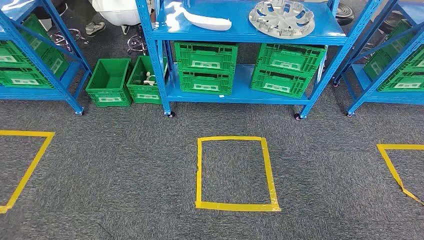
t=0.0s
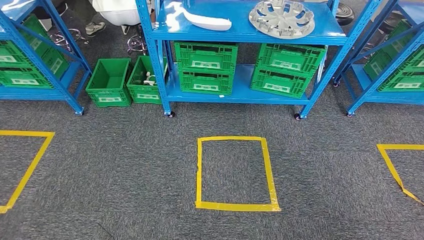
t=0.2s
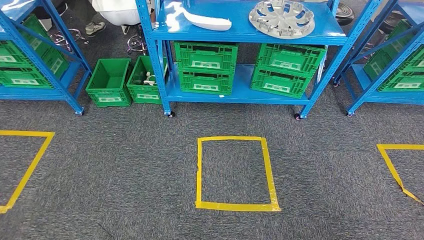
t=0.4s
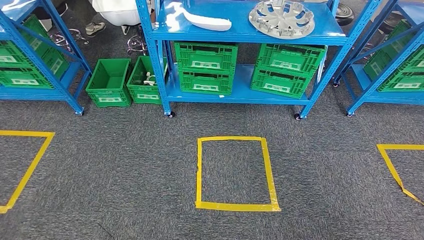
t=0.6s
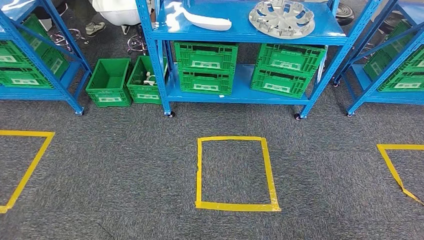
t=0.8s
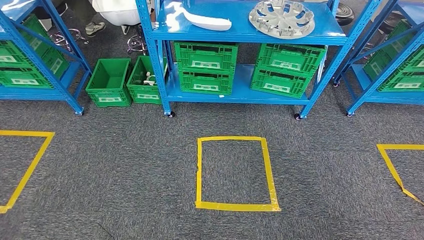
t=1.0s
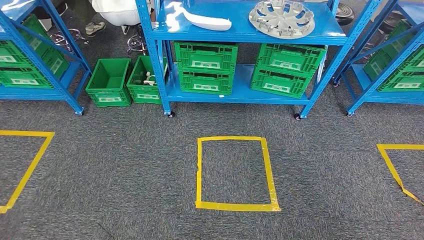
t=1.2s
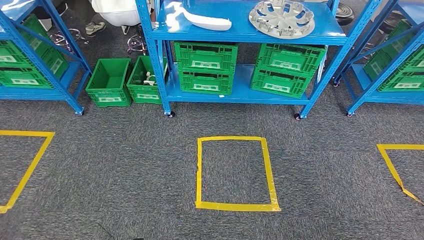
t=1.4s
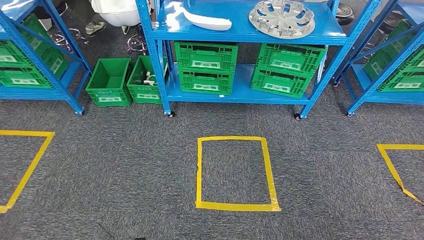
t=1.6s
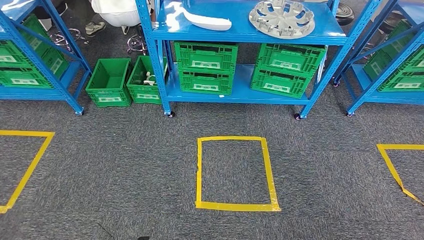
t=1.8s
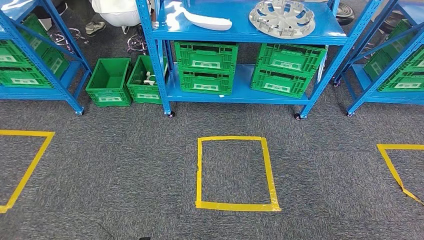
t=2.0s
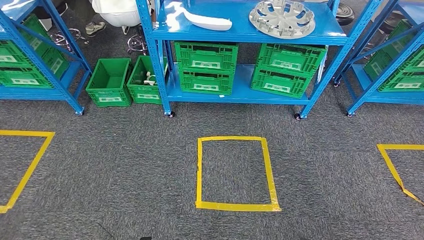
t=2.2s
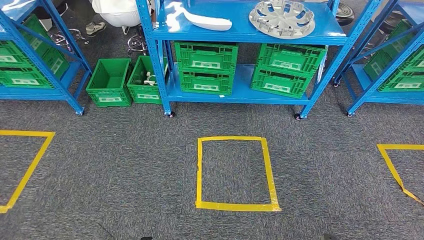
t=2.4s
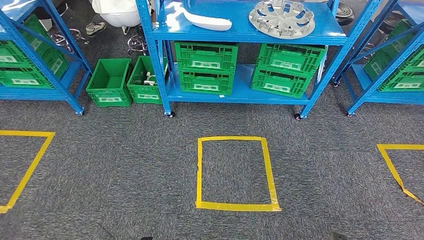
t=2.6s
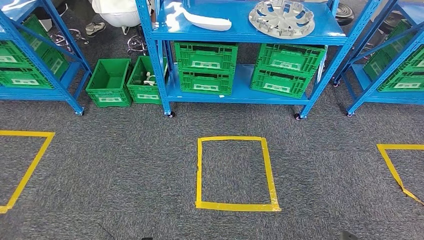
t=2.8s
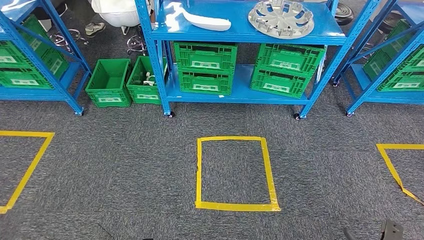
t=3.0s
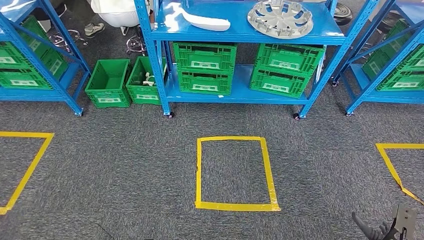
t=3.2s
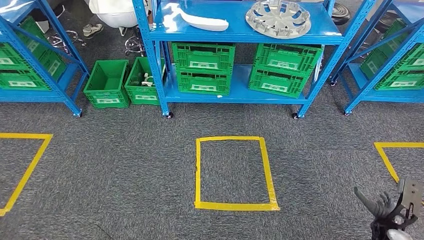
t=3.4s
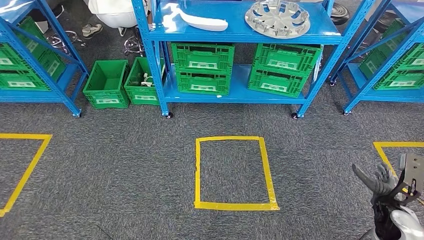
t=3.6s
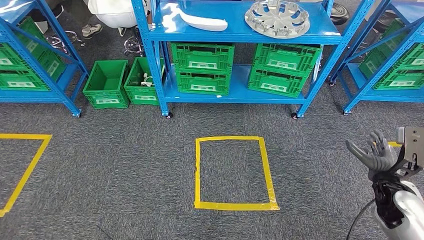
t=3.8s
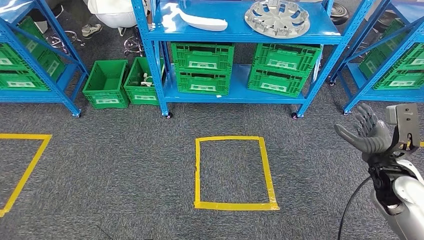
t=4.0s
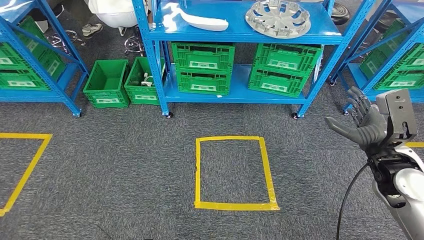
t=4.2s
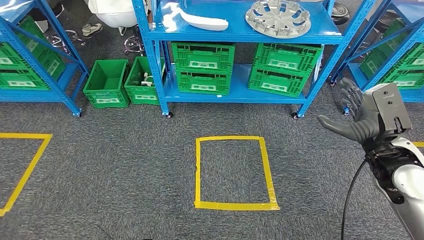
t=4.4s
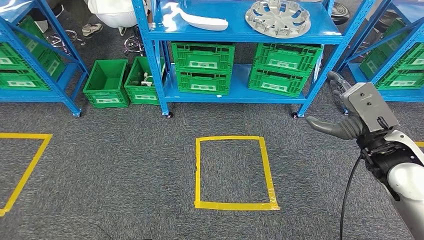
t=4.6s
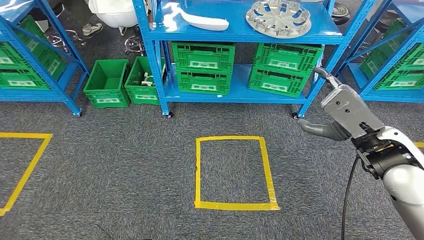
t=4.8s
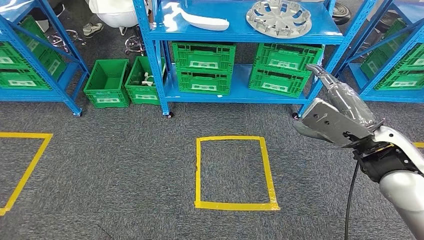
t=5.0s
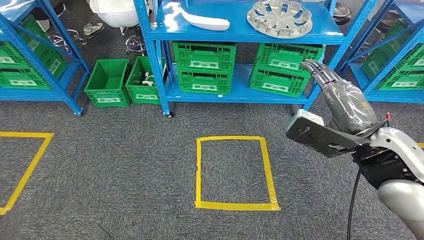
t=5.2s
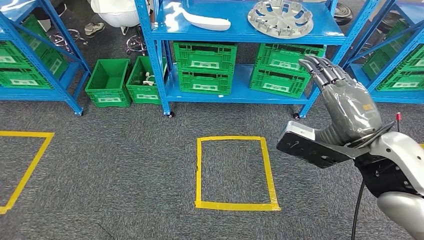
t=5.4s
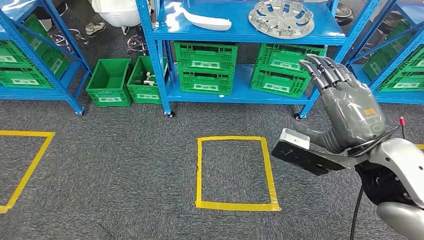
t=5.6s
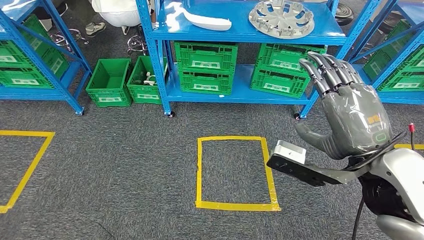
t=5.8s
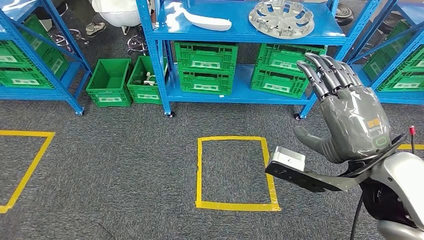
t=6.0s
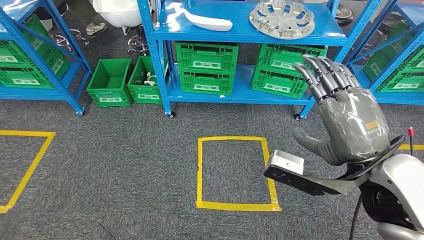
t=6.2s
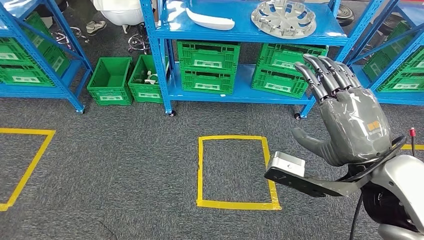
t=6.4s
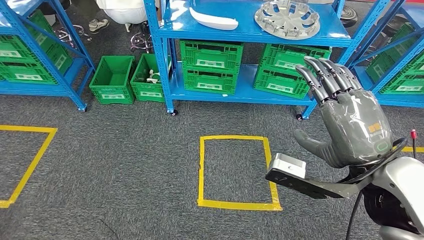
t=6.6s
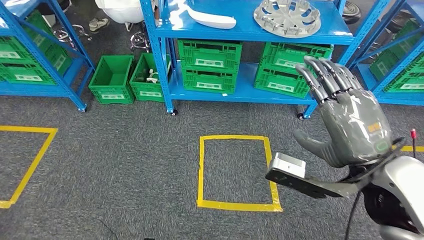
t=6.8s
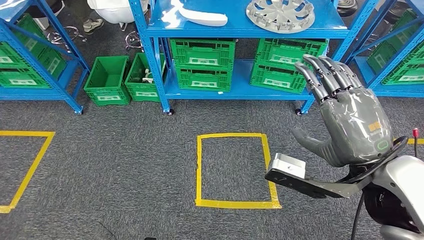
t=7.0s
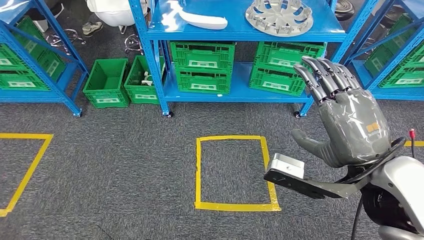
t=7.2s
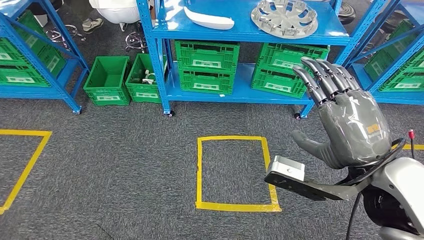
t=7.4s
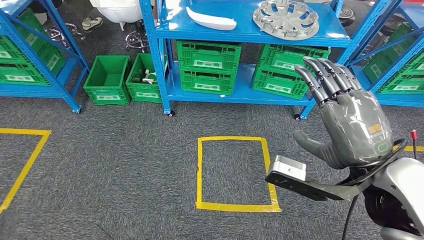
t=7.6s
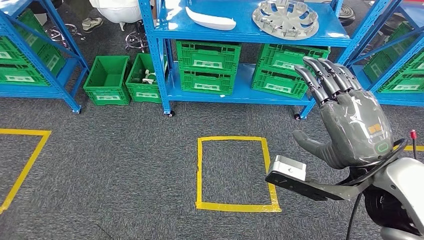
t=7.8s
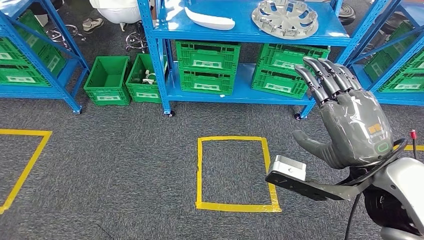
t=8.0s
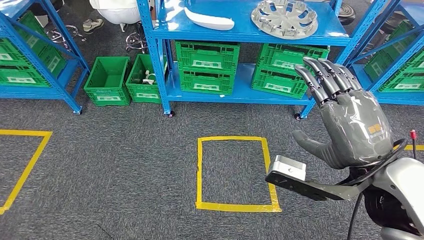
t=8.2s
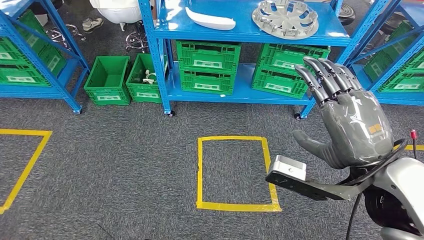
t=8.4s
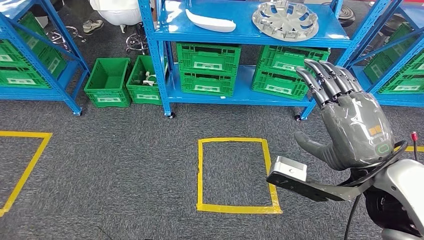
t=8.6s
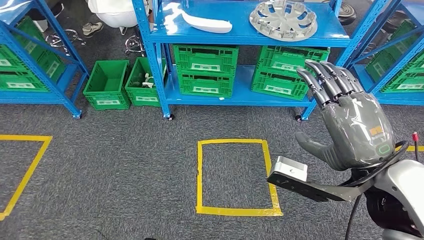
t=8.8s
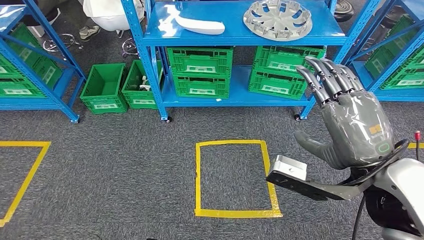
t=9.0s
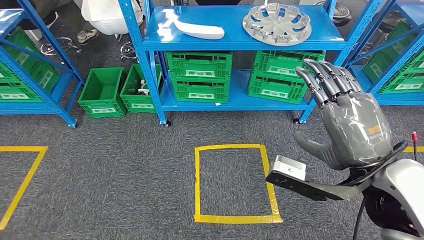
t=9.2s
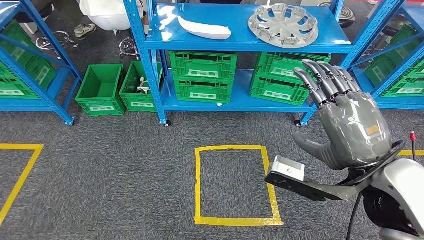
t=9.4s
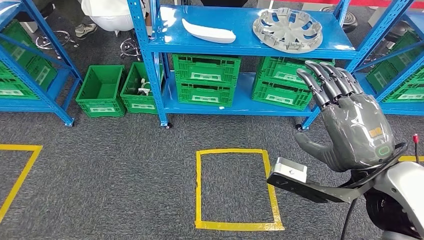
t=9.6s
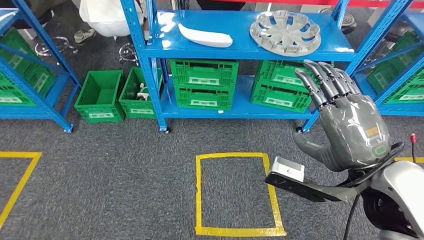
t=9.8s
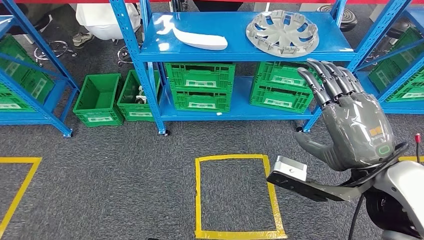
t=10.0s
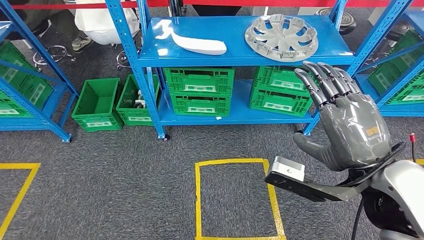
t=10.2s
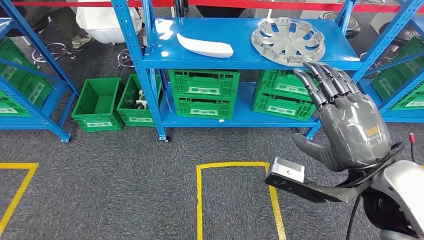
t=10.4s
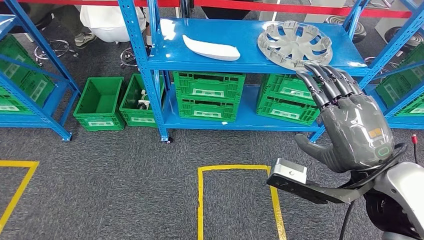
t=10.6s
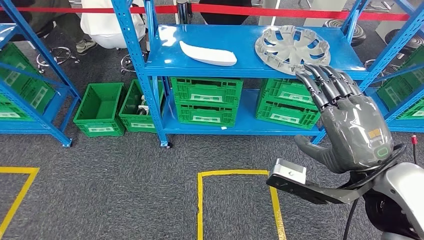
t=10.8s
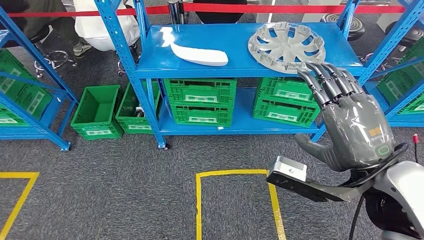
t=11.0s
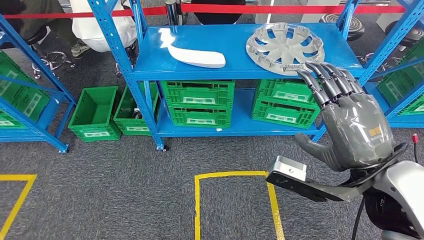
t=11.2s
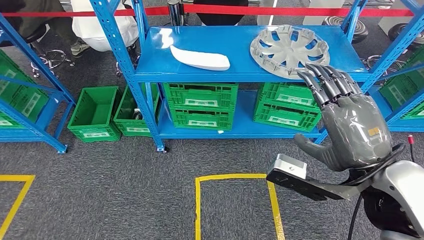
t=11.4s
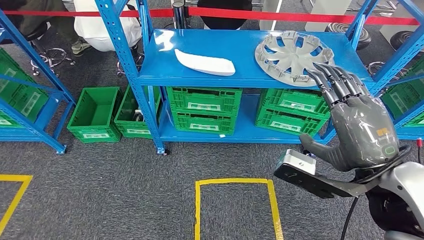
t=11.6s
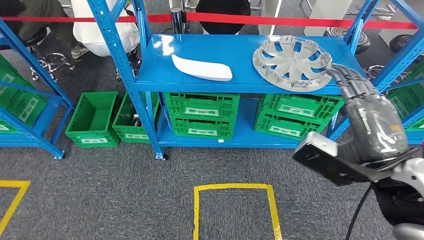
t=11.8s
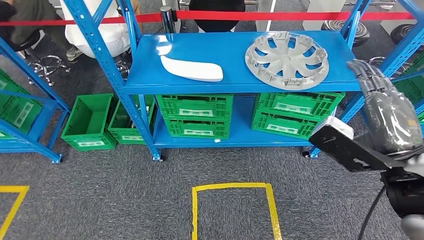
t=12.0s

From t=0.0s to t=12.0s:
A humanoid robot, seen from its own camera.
From t=1.6s to t=3.0s: The right hand moves to the right, approximately 20 cm.
From t=3.0s to t=4.4s: The right hand travels upward and forward by approximately 40 cm.

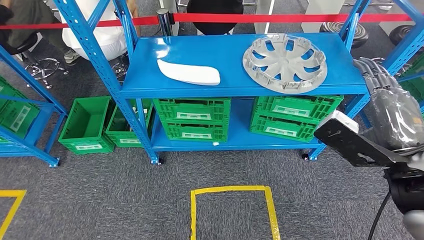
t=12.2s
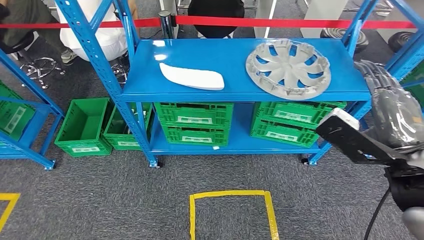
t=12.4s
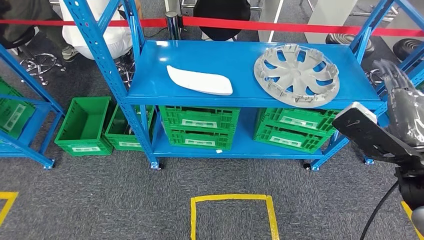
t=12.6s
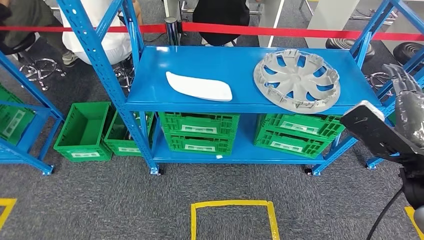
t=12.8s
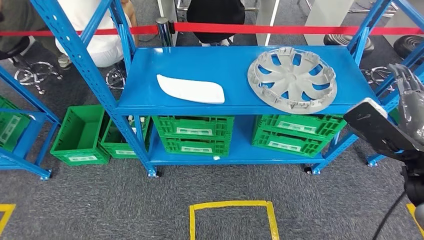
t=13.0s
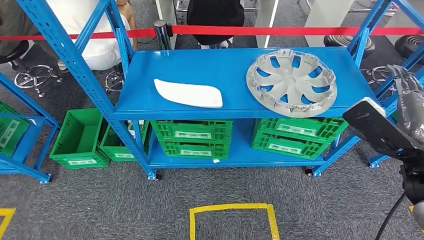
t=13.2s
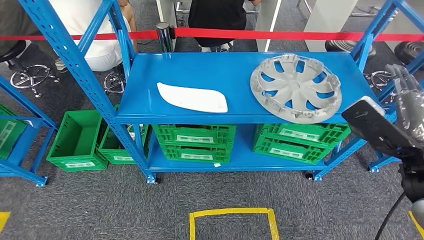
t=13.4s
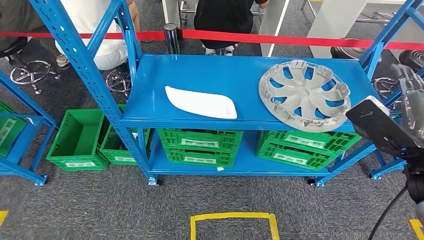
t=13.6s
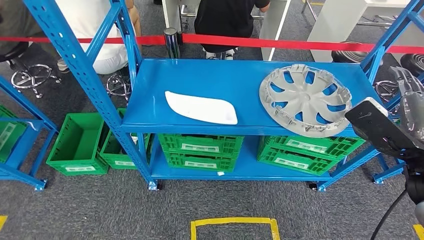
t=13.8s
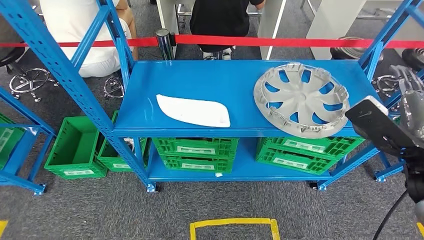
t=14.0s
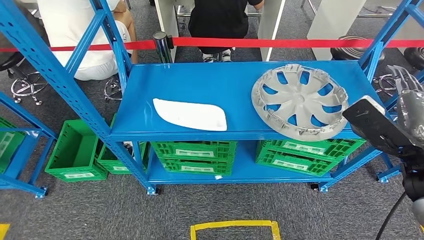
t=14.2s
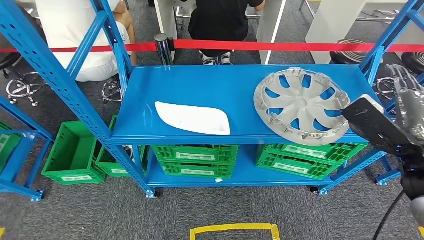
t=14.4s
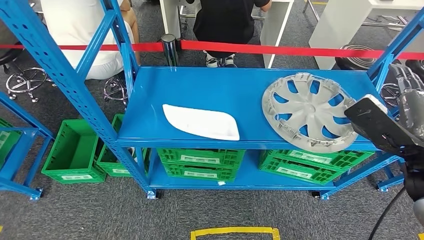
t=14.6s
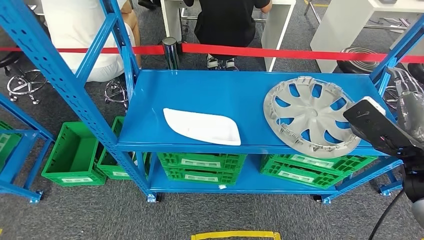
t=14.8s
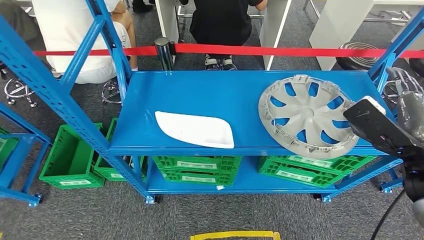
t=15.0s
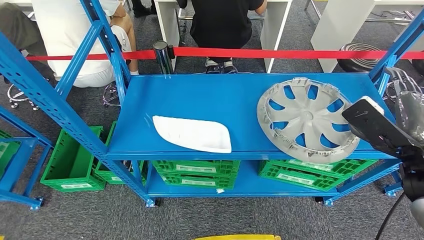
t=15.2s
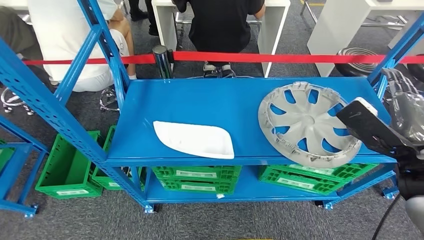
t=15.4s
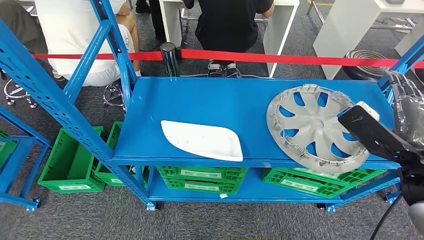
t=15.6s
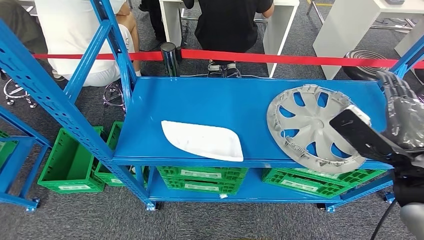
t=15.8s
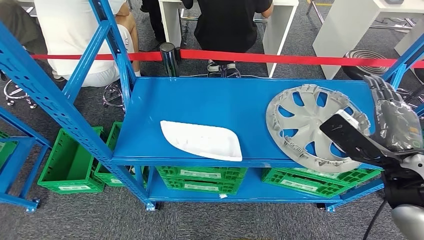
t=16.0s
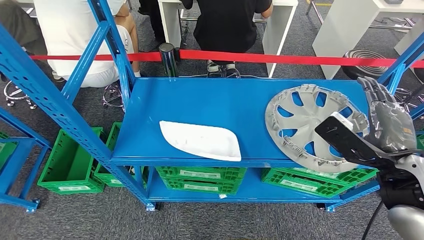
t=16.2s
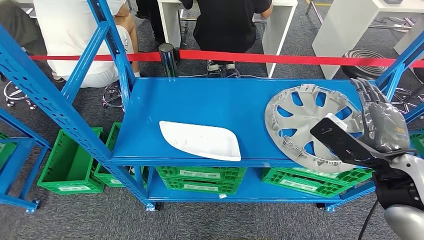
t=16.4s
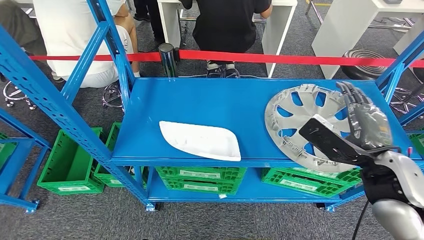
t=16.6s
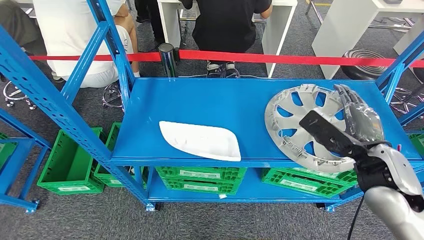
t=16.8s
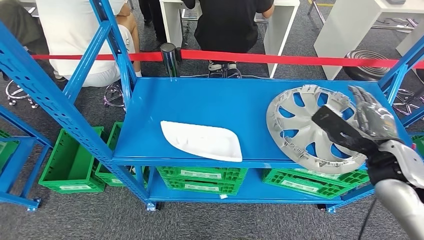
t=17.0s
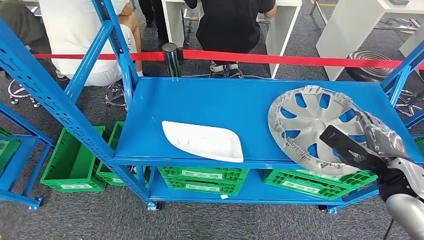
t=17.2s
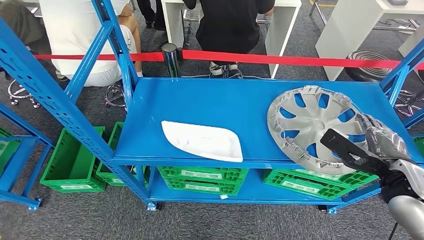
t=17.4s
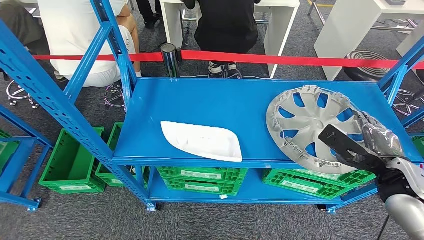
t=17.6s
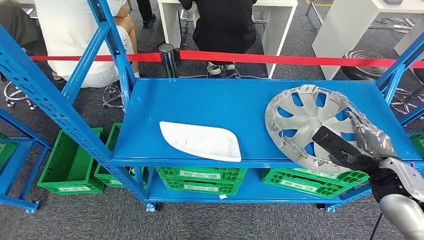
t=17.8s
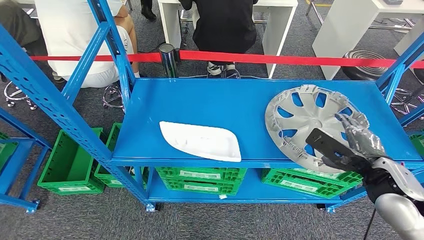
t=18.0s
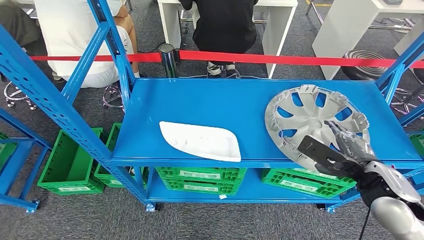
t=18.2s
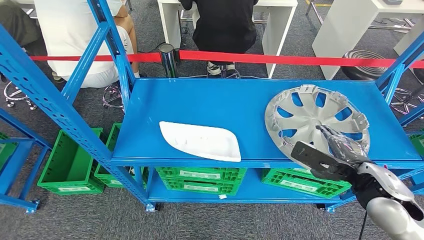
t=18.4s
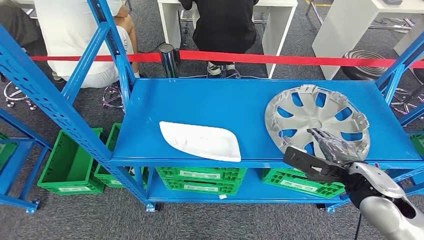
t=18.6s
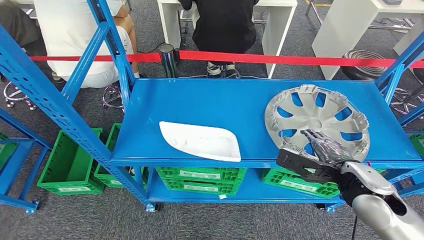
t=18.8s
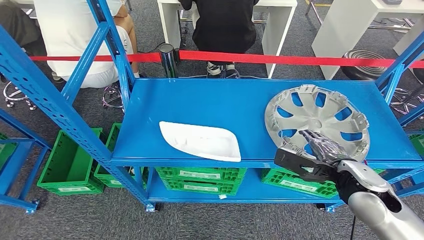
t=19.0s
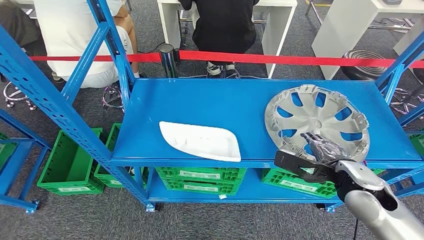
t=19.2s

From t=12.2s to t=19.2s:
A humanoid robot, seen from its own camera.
From t=16.4s to t=17.8s: The right hand travels downward and to the right by some 10 cm.
From t=17.8s to t=19.2s: The right hand moves to the left, roughly 5 cm.
